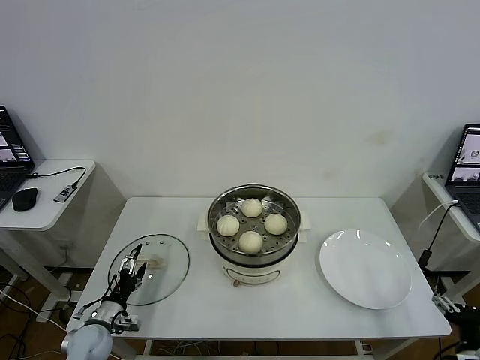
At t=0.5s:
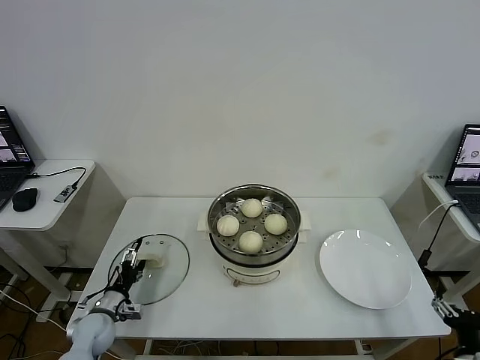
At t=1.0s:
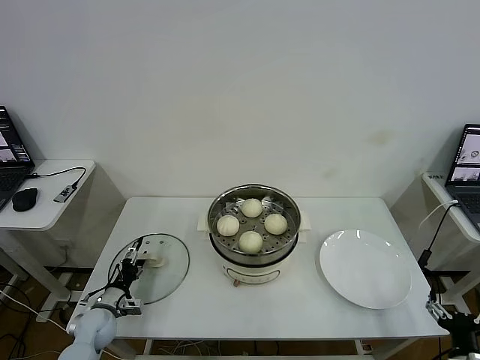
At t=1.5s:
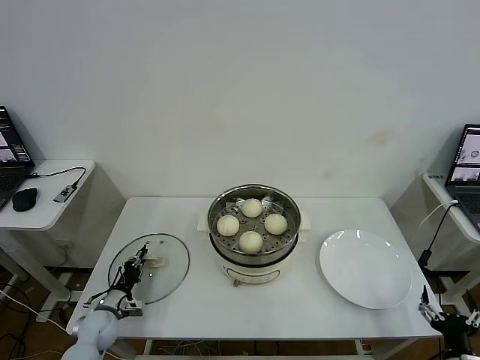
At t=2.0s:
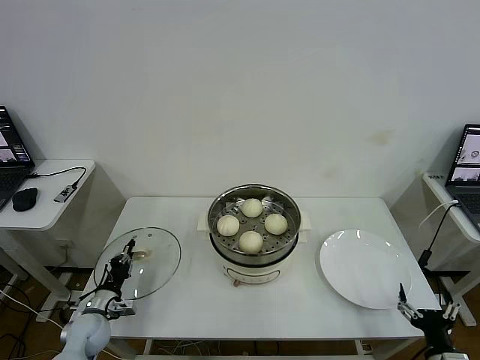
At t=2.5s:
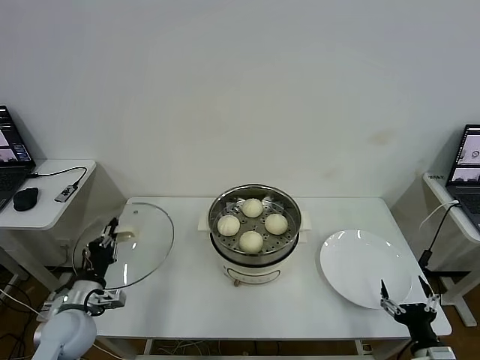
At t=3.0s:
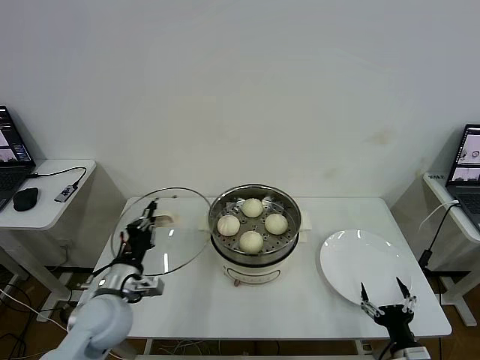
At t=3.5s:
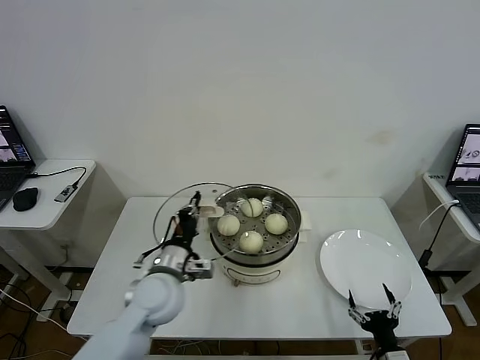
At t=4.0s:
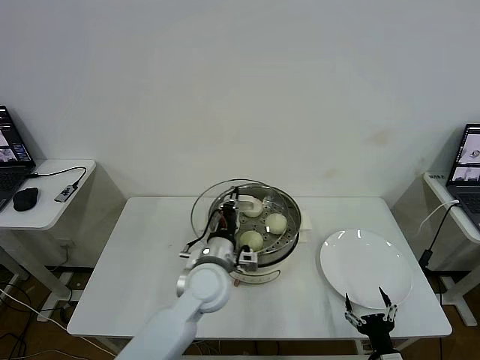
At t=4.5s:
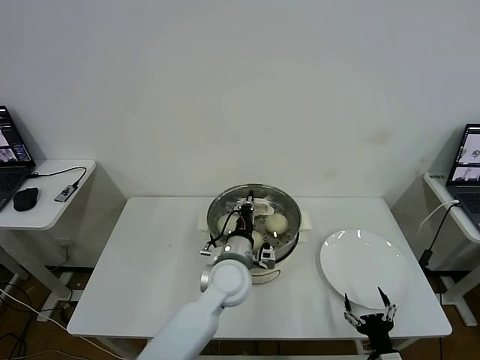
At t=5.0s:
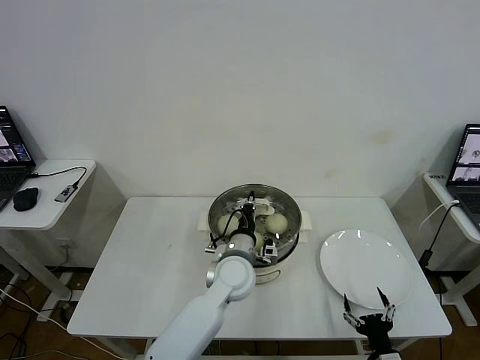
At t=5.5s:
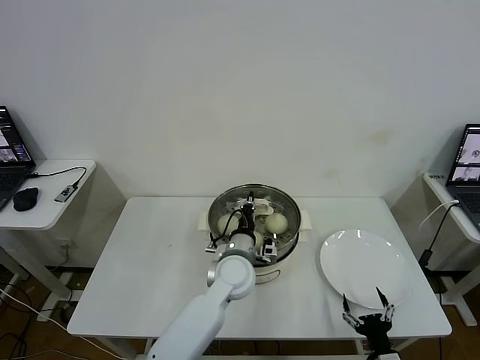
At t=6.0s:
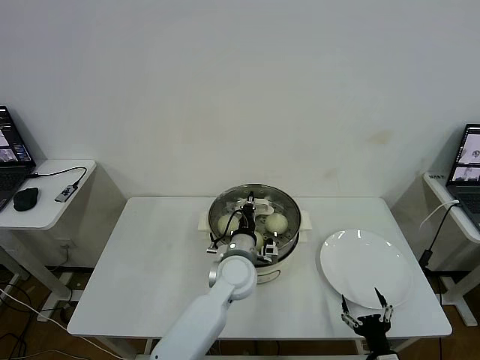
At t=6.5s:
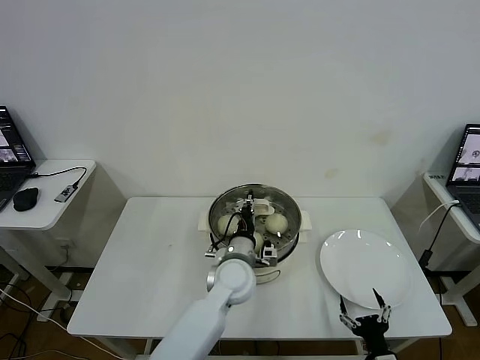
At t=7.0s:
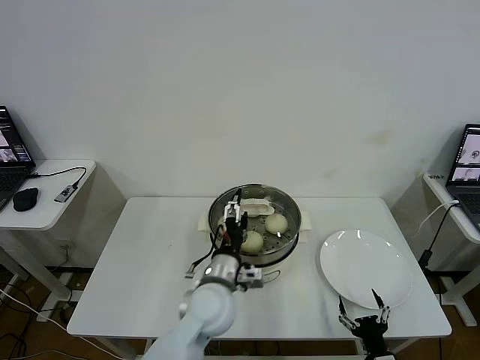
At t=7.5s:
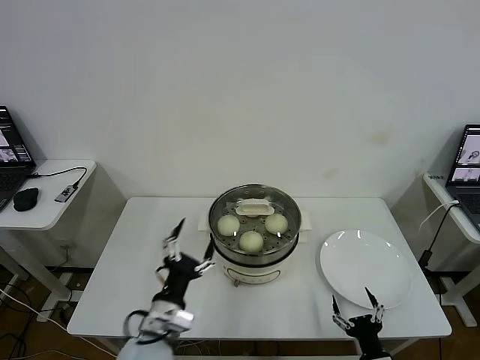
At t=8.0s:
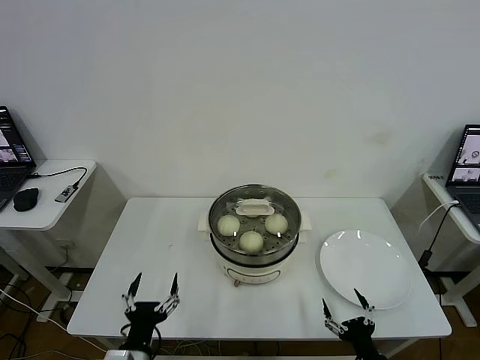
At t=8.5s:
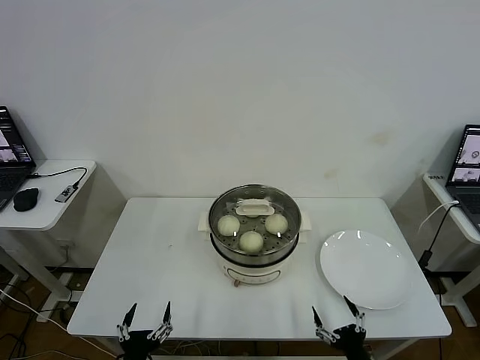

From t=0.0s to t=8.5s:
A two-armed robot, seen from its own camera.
Task of the whole recording: take steamed baozi put them in steamer then cover it.
Step, from t=2.5s to t=6.5s: Place the pot lid on the steamer with left gripper.
From t=0.0s to t=2.0s: The left gripper closes its fingers.
From t=2.0s to t=4.0s: The left gripper moves to the right and upward, about 35 cm. The right gripper is displaced to the left and downward by approximately 10 cm.
From t=4.0s to t=6.5s: The left gripper heads to the right, covering approximately 5 cm.
From t=6.5s to t=8.5s: The left gripper travels backward and to the left by approximately 35 cm, and opens its fingers.

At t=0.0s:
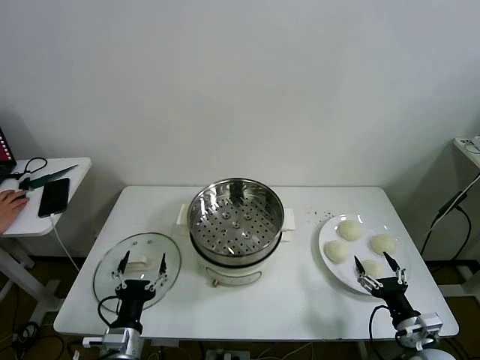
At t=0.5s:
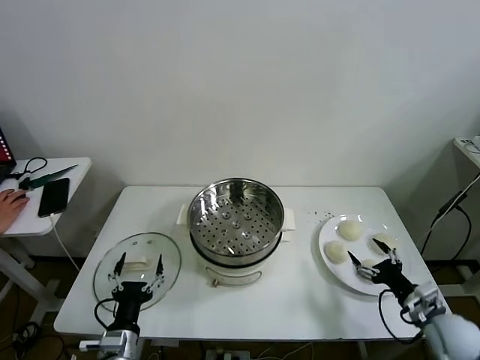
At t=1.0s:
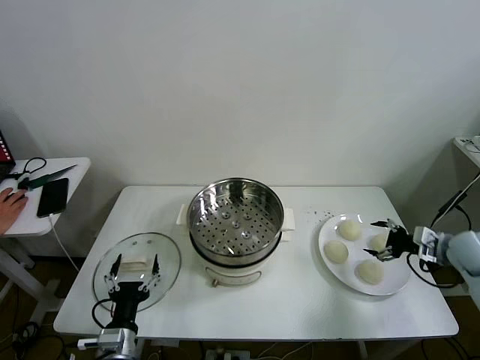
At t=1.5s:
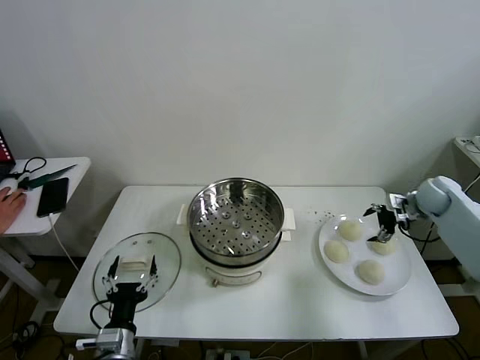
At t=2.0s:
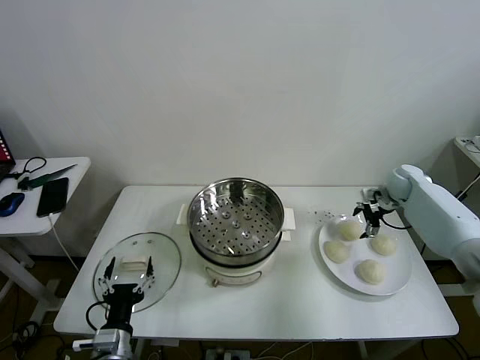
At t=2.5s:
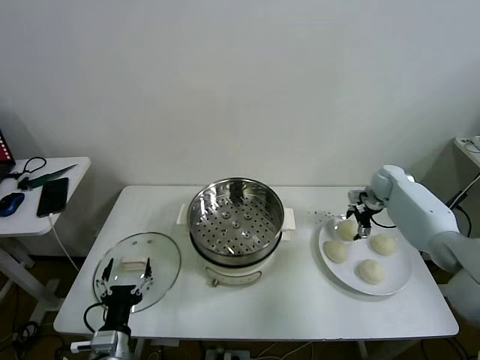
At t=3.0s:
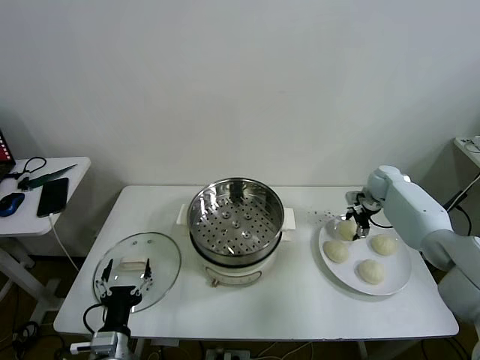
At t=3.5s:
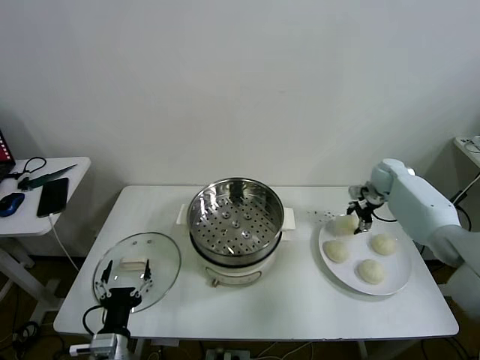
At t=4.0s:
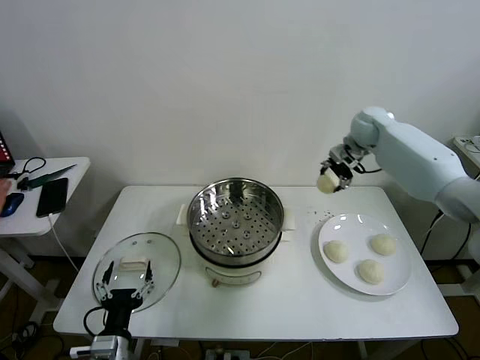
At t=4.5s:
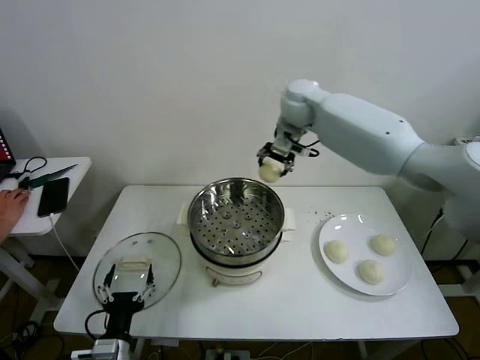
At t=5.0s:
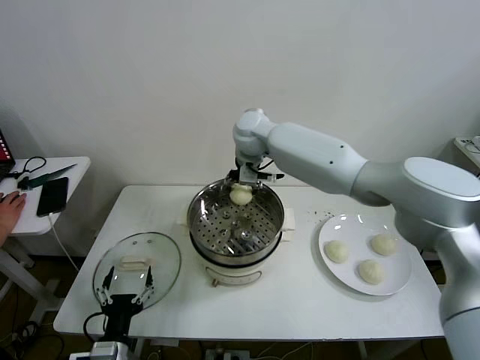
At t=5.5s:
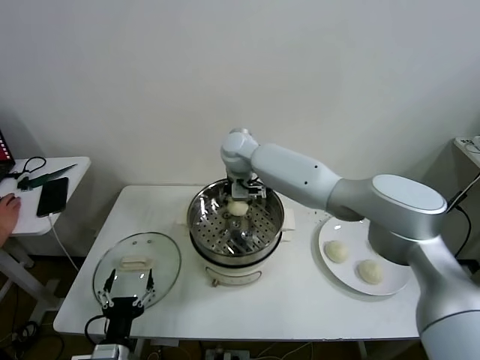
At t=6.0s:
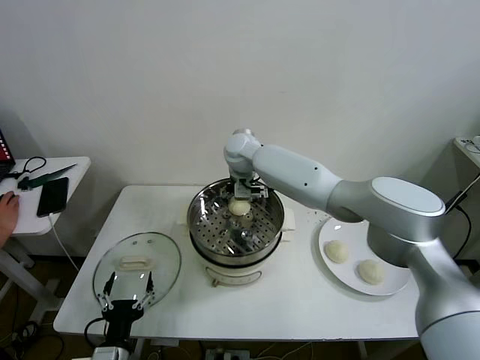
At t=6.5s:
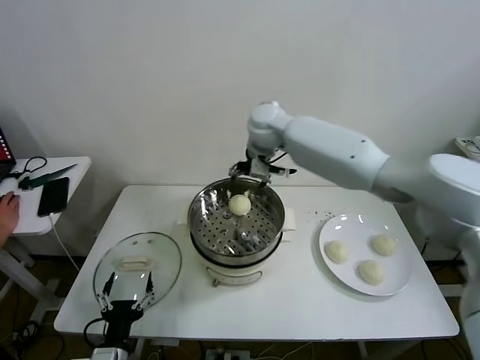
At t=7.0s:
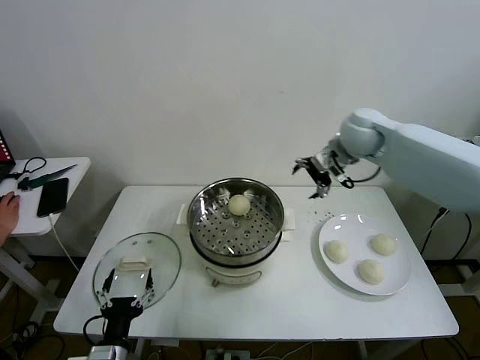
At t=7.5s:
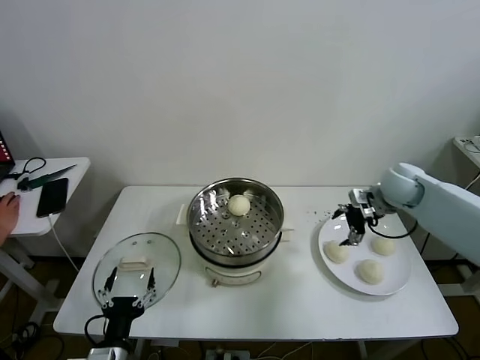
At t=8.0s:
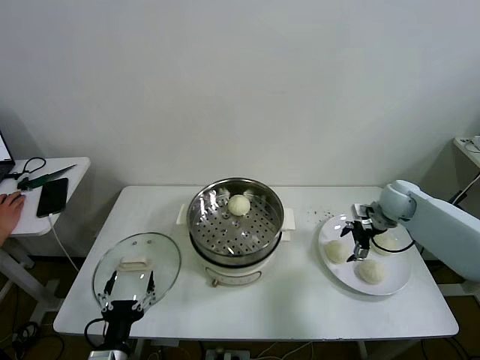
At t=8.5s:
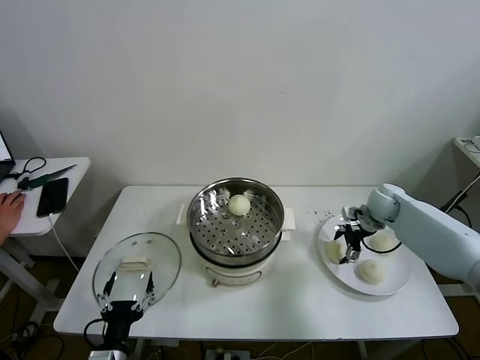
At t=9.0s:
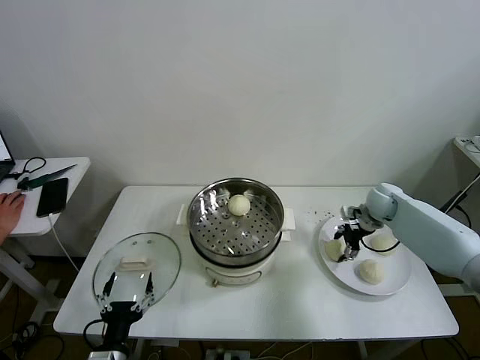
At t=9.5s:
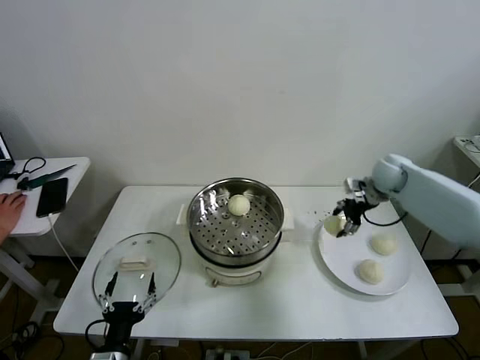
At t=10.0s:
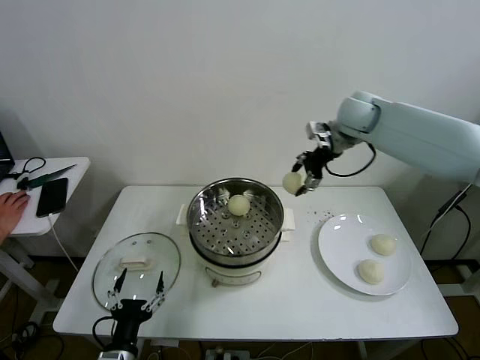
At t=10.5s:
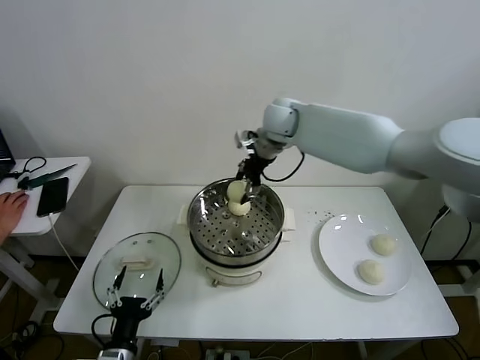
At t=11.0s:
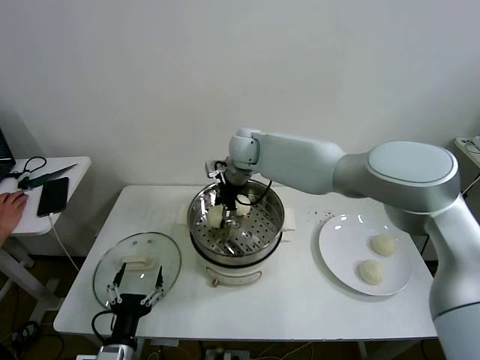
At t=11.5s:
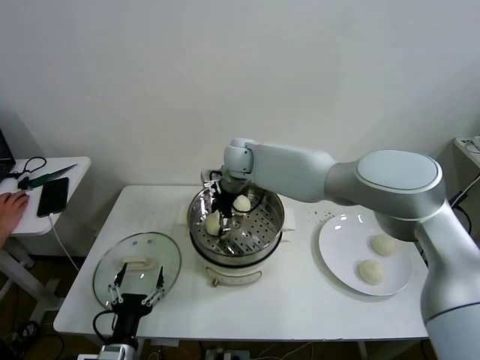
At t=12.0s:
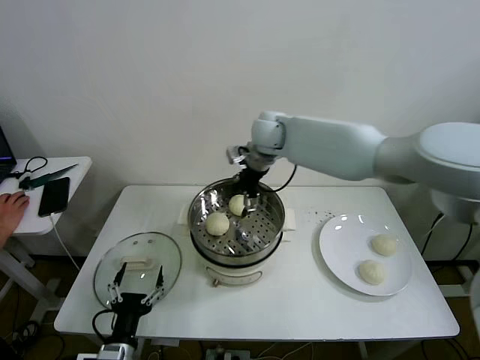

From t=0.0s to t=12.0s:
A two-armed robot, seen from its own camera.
Task of the whole recording: take steamed baozi put them in steamer then cover it.
Step, from t=0.0s to t=3.0s: Grasp the baozi in the plate with right gripper.
Step, from t=3.5s to t=5.5s: Place the baozi on the steamer with right gripper.
Step, from t=6.0s to t=8.5s: Grasp the baozi in the plate with right gripper.
Step, from t=9.0s to t=11.5s: Place the baozi on the steamer with right gripper.
From t=2.0s to t=4.0s: The right gripper goes some 25 cm upward and to the left, and closes its fingers.
From t=4.0s to t=6.0s: The right gripper heads to the left, covering about 30 cm, and opens.
From t=6.0s to t=8.0s: The right gripper heads to the right, covering about 40 cm.
From t=8.0s to t=10.0s: The right gripper travels upward and to the left by about 30 cm, and closes its fingers.
From t=10.0s to t=12.0s: The right gripper moves to the left, approximately 15 cm, and opens up.

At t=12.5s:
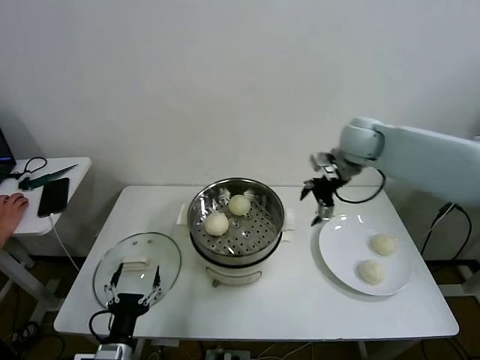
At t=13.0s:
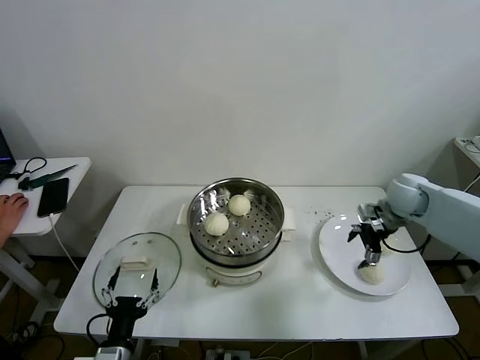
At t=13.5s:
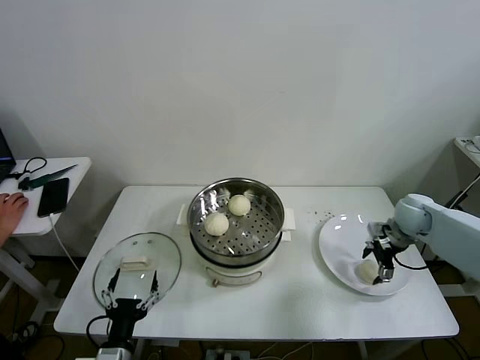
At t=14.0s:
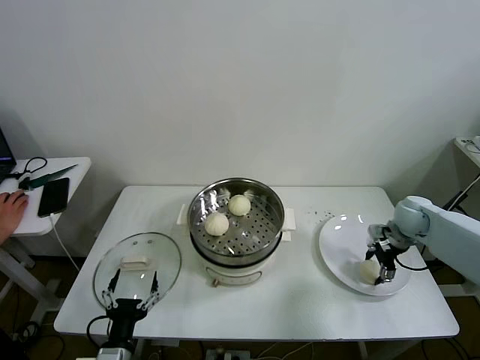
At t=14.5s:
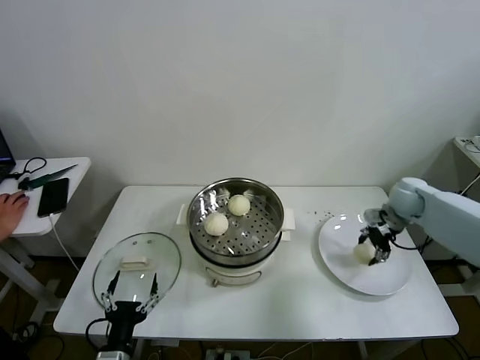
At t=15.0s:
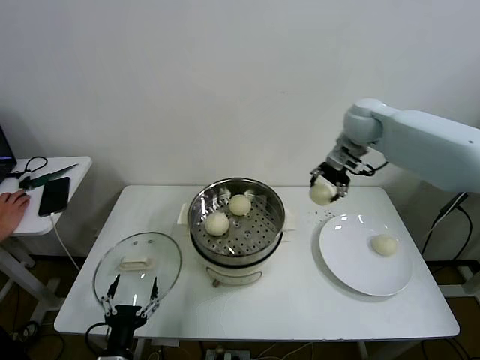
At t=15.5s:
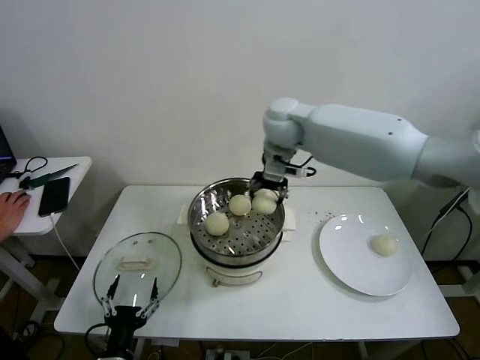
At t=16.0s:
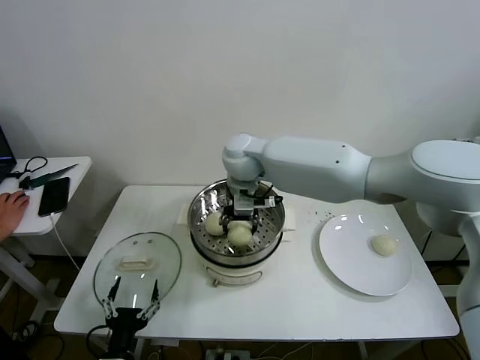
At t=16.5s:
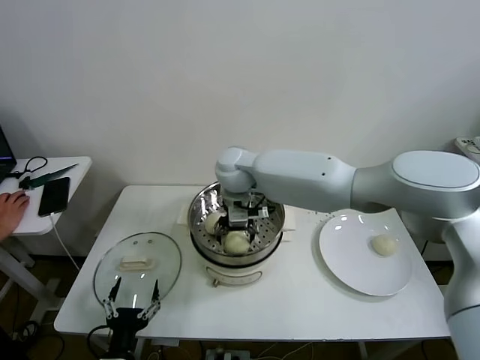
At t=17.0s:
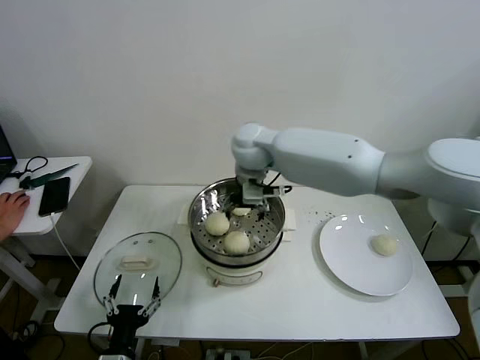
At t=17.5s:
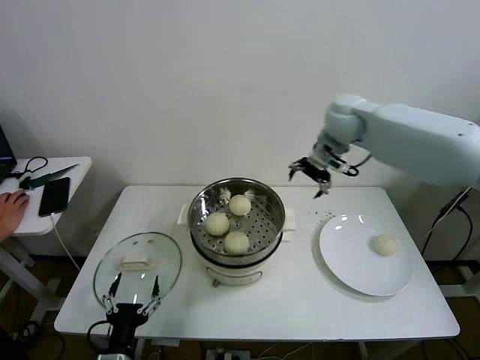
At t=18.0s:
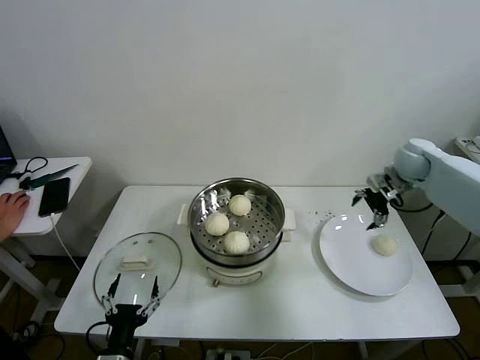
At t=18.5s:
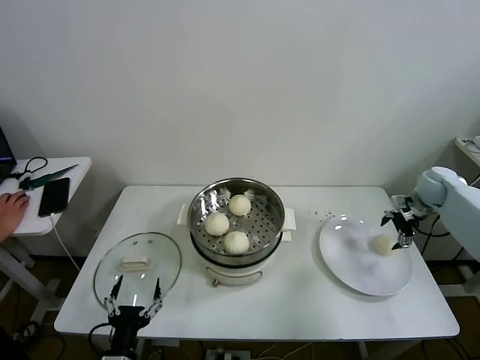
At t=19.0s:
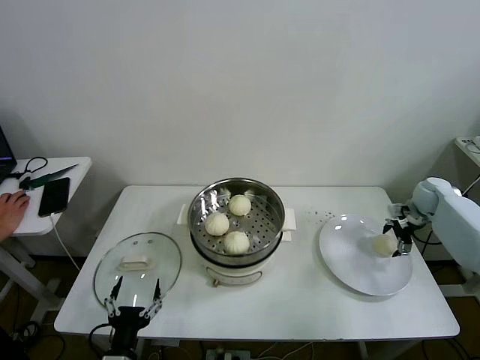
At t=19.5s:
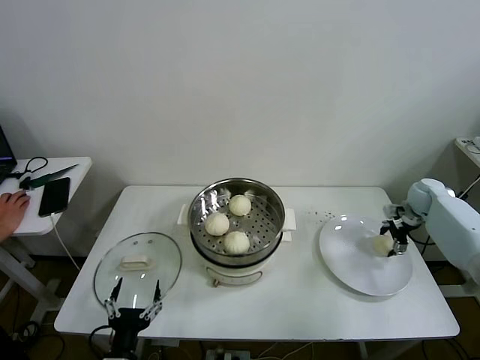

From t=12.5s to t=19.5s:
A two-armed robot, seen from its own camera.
Task of the whole recording: take steamed baozi put them in steamer then cover it.
Step, from t=12.5s to t=14.0s: Grasp the baozi in the plate with right gripper.
Step, from t=14.5s to t=16.5s: Place the baozi on the steamer with right gripper.
Step, from t=17.0s to t=19.5s: Grasp the baozi in the plate with right gripper.
From t=12.5s to t=14.5s: The right gripper shifts some 20 cm to the right and downward, and closes its fingers.
From t=14.5s to t=16.0s: The right gripper shifts roughly 40 cm to the left.
From t=16.0s to t=17.5s: The right gripper travels to the right by about 25 cm, and opens.
From t=17.5s to t=19.5s: The right gripper moves to the right and downward, roughly 35 cm, and closes its fingers.
